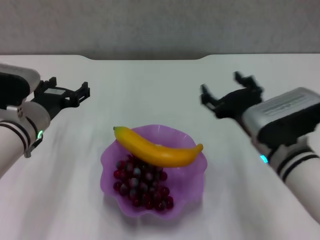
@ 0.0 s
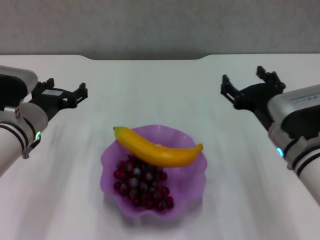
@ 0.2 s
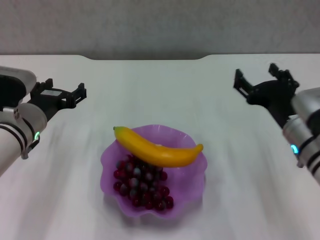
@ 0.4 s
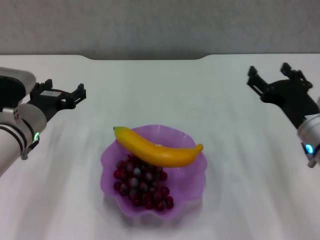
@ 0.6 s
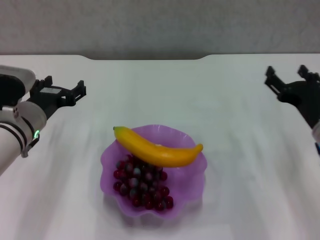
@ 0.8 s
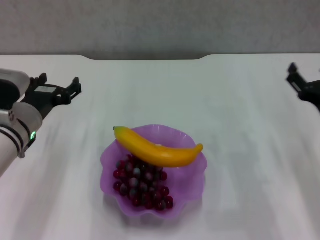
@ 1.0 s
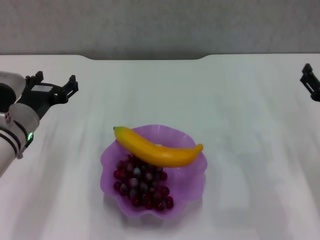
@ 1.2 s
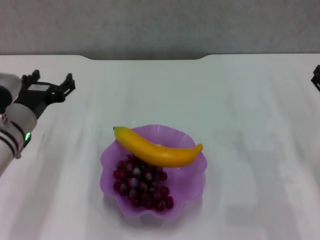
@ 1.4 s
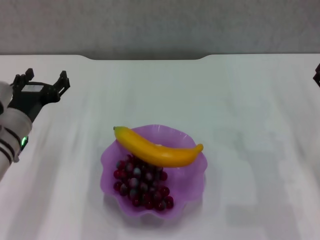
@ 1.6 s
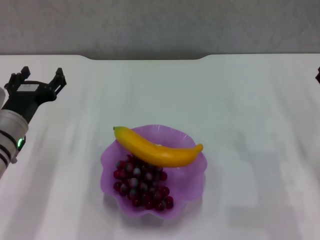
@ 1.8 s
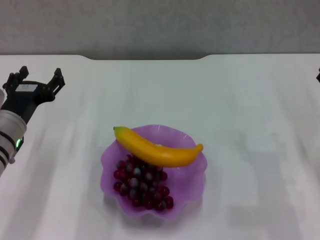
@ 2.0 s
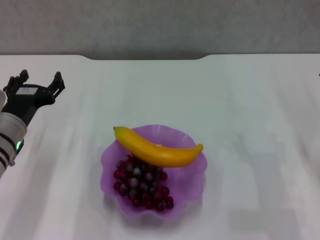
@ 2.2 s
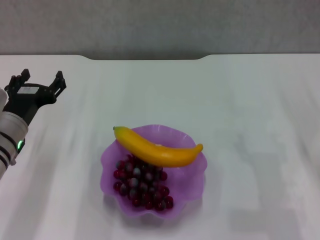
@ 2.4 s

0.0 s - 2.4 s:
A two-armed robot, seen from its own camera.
0.0 s - 1.2 s: The right gripper is displaced to the right by approximately 15 cm.
1.2 s - 2.4 s: The grippers stay close to where they were, moving slightly.
